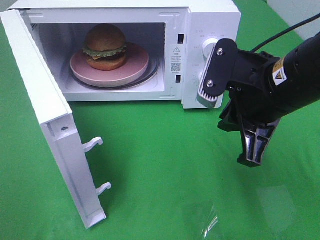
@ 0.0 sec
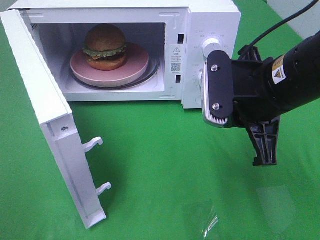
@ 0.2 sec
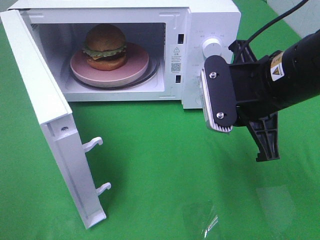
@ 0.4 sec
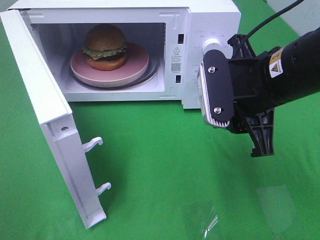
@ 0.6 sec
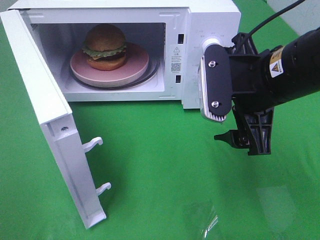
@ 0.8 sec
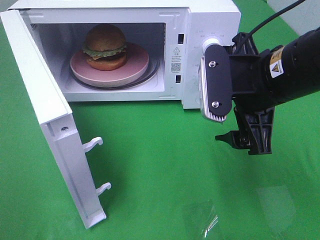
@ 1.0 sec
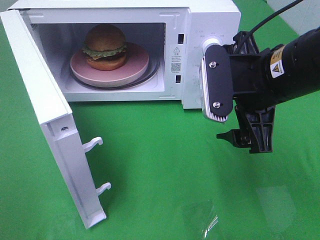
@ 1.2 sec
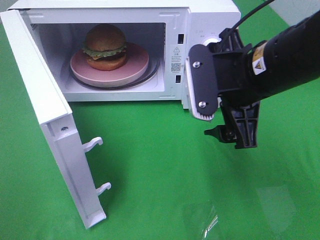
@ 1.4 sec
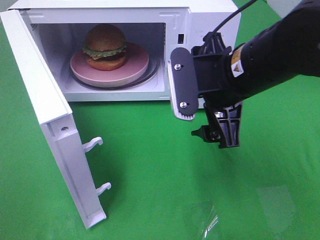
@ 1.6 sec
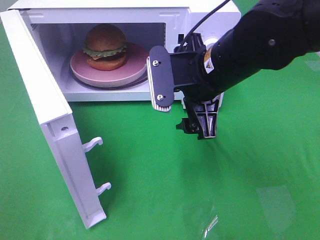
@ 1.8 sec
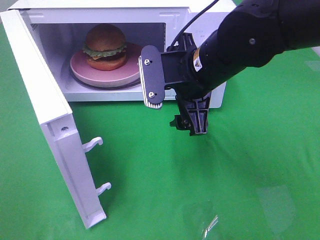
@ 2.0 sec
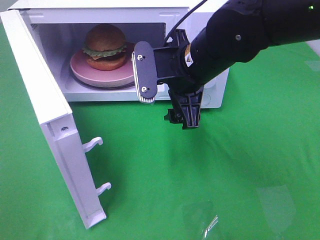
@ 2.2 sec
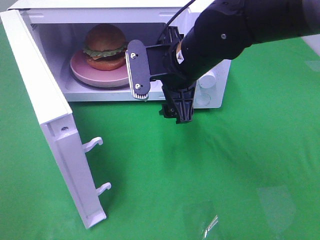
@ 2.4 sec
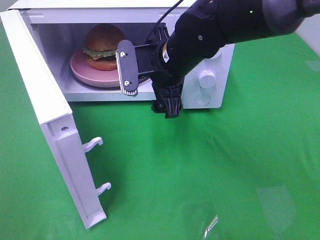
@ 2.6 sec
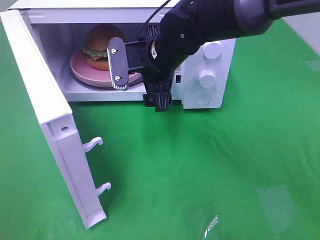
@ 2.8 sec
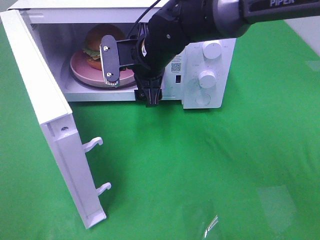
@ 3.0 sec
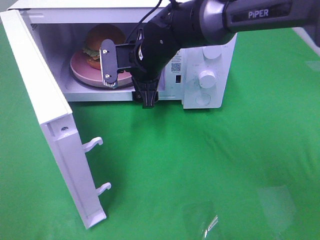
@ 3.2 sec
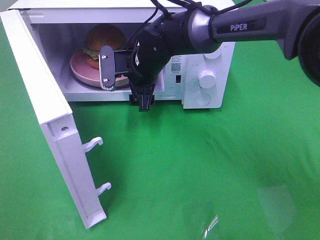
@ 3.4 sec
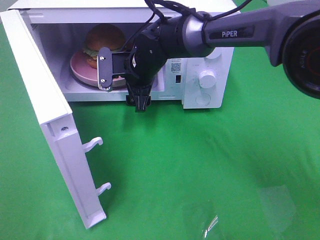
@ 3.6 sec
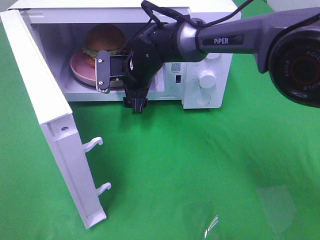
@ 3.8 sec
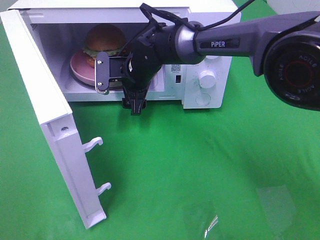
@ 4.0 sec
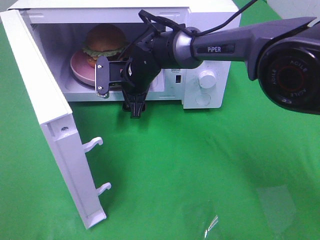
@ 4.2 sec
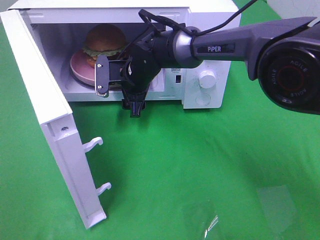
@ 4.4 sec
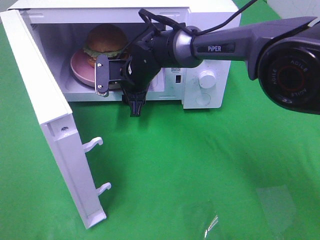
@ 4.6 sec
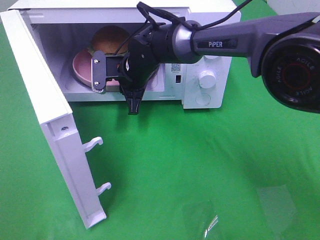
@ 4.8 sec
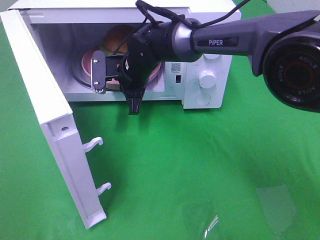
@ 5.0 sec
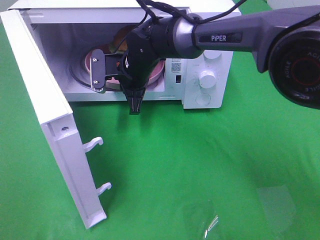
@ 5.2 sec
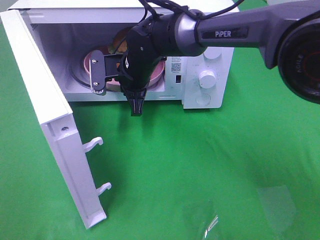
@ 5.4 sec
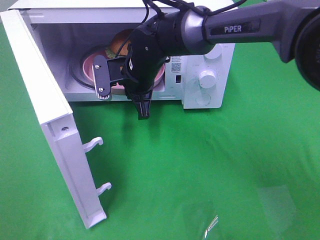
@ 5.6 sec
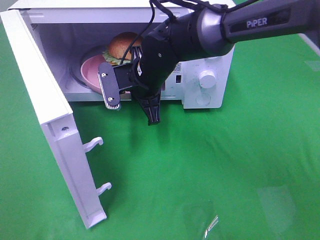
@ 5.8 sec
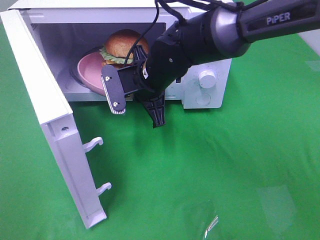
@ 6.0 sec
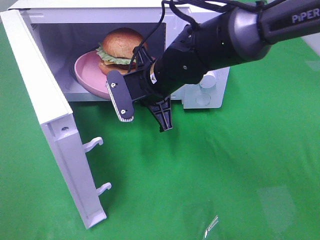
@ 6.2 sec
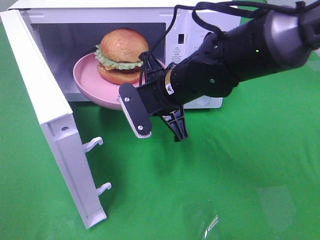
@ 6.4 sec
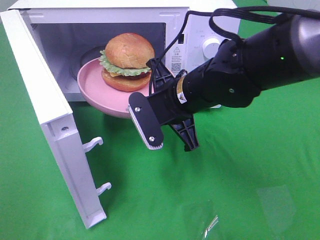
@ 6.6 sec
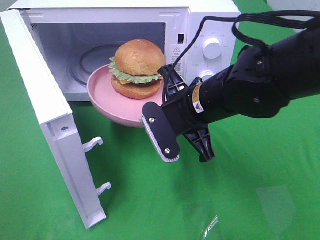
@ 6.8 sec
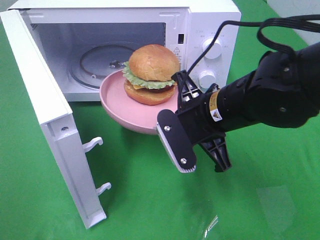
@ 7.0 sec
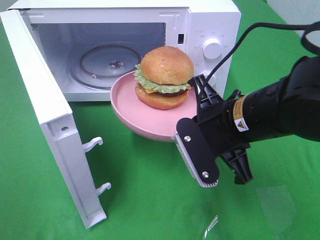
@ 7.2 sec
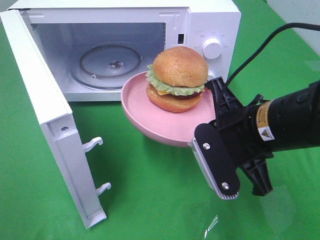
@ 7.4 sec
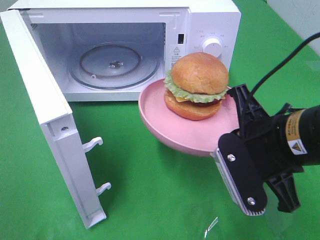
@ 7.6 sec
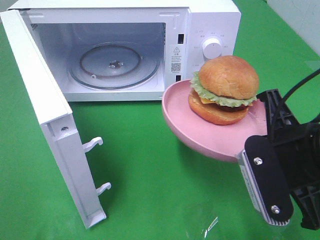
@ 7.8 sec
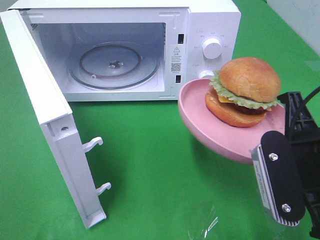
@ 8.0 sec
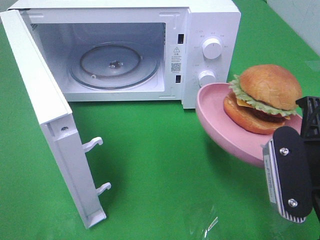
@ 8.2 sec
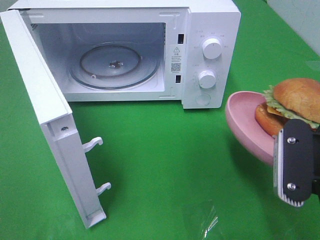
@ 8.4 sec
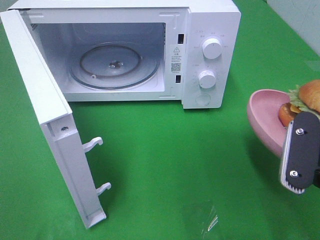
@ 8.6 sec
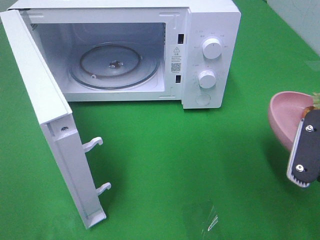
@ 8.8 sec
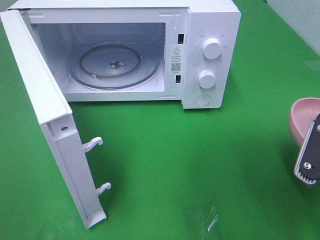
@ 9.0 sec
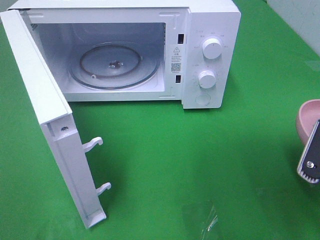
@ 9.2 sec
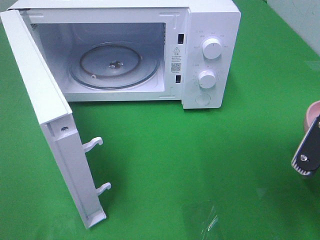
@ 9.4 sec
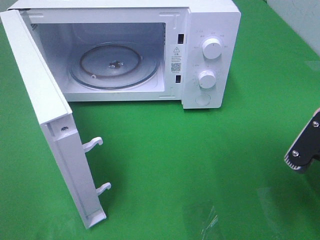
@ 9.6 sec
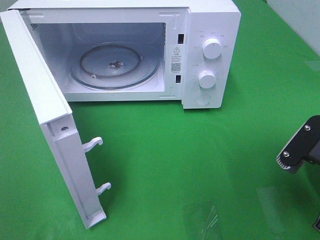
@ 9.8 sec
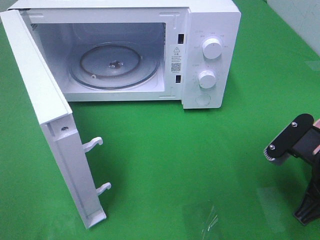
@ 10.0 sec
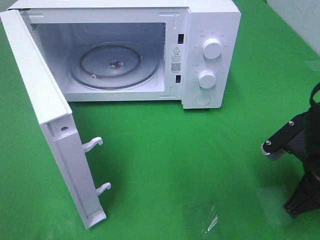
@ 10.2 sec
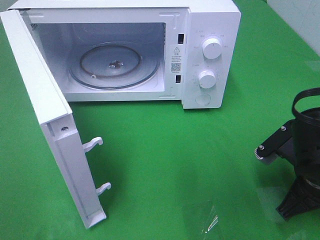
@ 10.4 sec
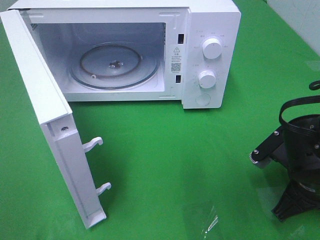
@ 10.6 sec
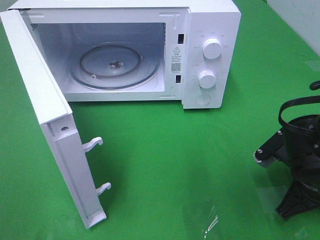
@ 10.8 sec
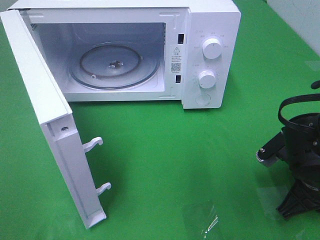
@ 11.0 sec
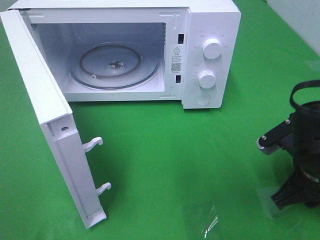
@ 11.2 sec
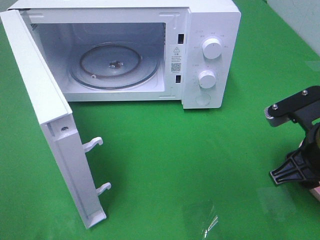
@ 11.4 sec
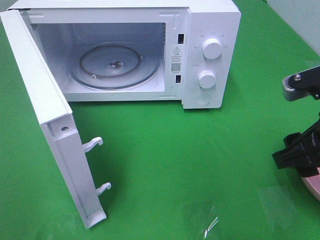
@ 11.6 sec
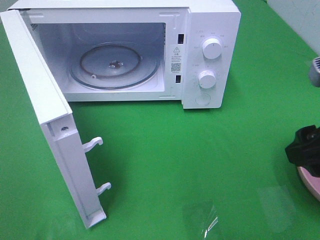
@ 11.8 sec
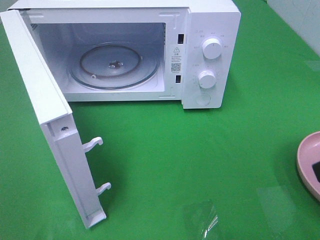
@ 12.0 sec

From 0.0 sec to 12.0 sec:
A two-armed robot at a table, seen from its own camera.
Task of the whole recording: Heat the burger.
Step, from 0.0 sec to 5.0 sec: Right hand: grab the plate with the hamburger.
Step, from 5.2 sec to 11.0 sec: Right hand: place the plate on the table.
From 0.0 sec to 1.6 sec: The right gripper opens.
From 1.6 sec to 3.0 sec: The right gripper travels forward and to the left by roughly 15 cm.
From 3.0 sec to 4.4 sec: The right gripper shifts roughly 5 cm downward.
From 4.4 sec to 6.0 sec: The right gripper moves backward, approximately 5 cm, and closes its fingers.
From 6.0 sec to 7.6 sec: The right gripper goes approximately 25 cm backward and to the right.
From 7.6 sec to 9.0 sec: The right gripper heads to the right, covering roughly 10 cm.
From 9.0 sec to 10.4 sec: The right gripper goes some 10 cm downward and forward.
From 10.4 sec to 12.0 sec: The right gripper moves upward and backward, some 20 cm, and opens.

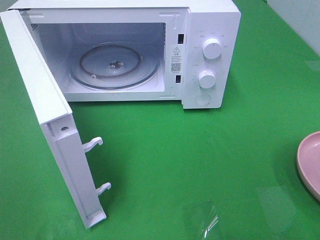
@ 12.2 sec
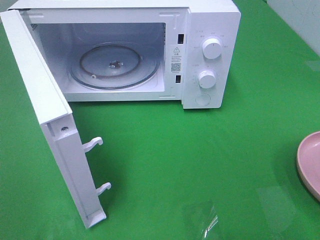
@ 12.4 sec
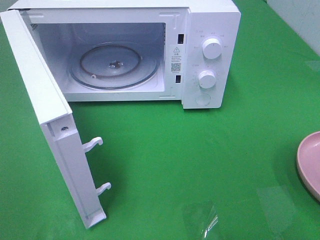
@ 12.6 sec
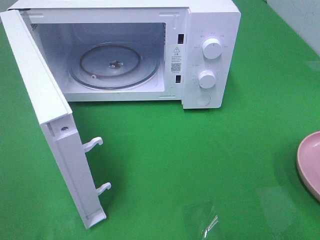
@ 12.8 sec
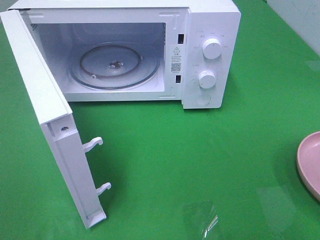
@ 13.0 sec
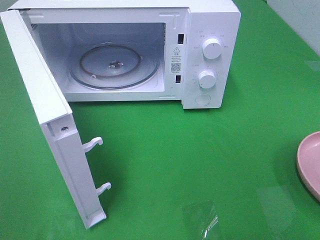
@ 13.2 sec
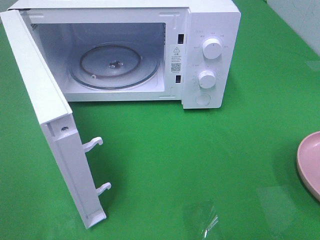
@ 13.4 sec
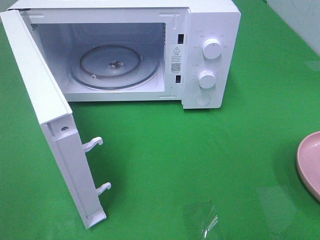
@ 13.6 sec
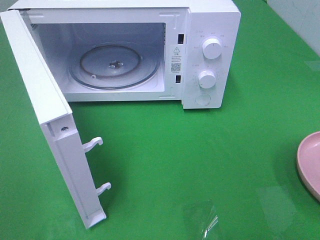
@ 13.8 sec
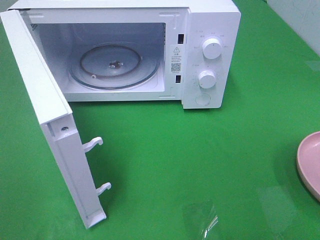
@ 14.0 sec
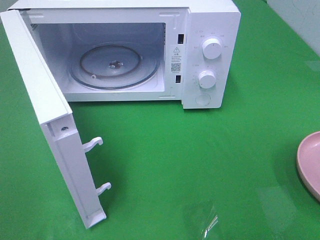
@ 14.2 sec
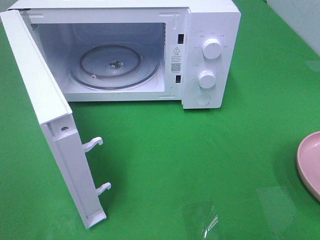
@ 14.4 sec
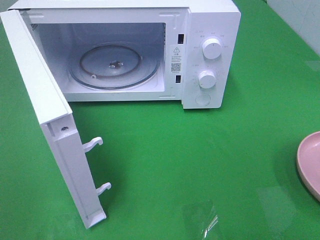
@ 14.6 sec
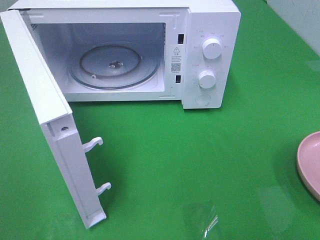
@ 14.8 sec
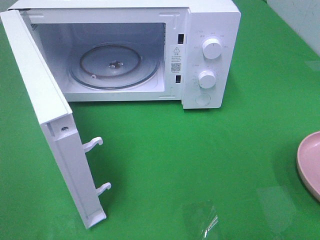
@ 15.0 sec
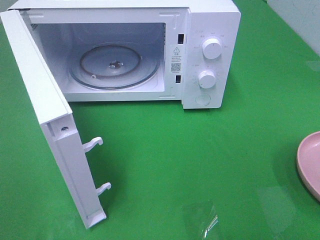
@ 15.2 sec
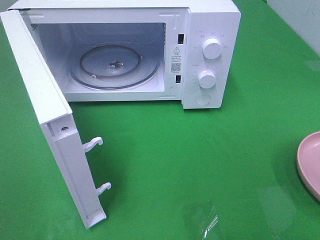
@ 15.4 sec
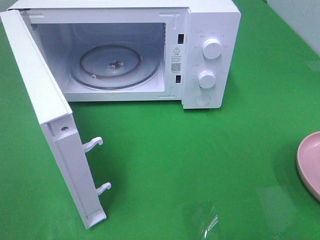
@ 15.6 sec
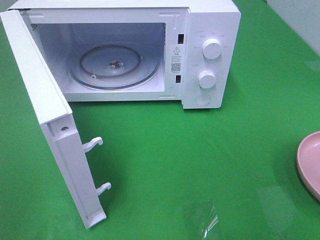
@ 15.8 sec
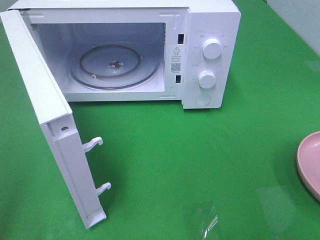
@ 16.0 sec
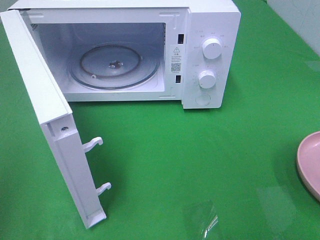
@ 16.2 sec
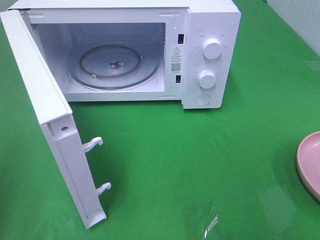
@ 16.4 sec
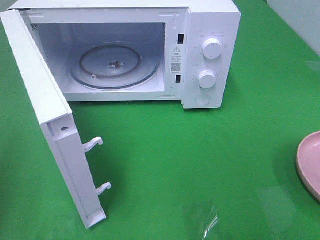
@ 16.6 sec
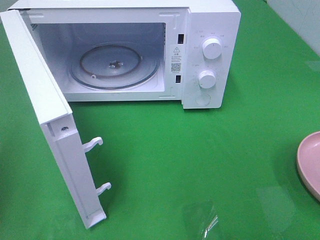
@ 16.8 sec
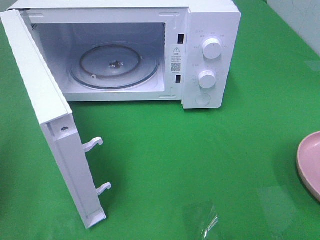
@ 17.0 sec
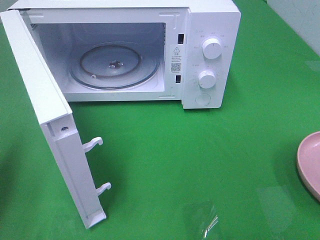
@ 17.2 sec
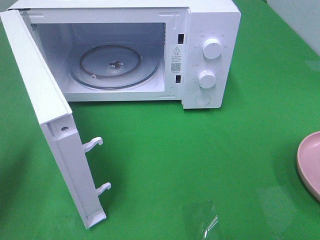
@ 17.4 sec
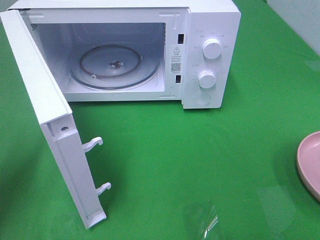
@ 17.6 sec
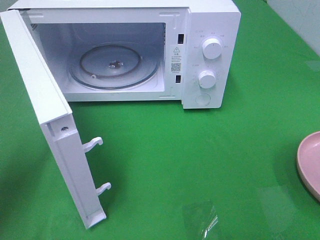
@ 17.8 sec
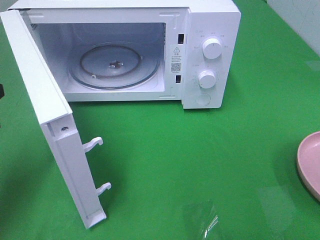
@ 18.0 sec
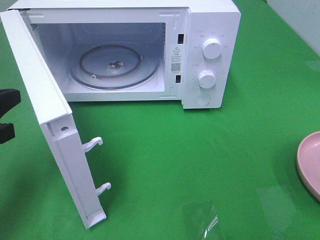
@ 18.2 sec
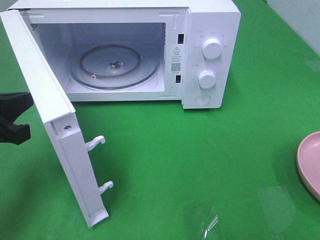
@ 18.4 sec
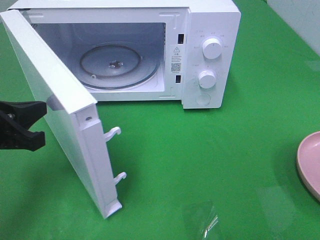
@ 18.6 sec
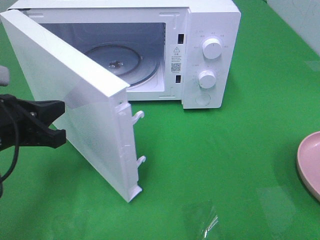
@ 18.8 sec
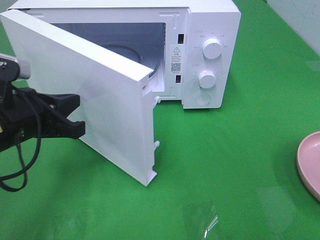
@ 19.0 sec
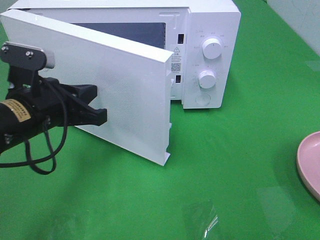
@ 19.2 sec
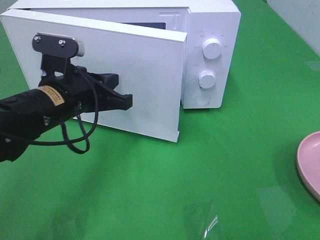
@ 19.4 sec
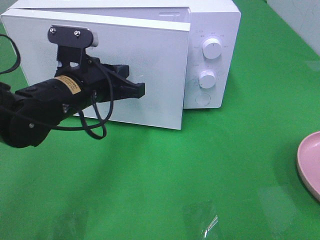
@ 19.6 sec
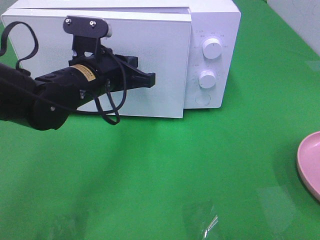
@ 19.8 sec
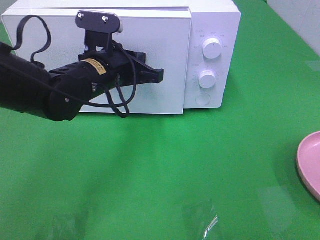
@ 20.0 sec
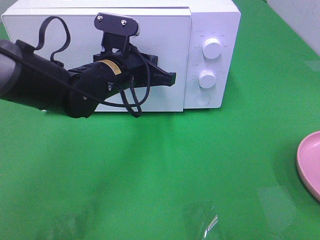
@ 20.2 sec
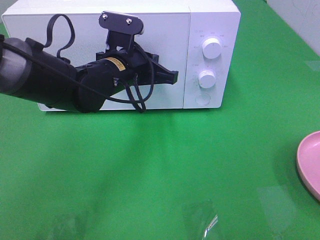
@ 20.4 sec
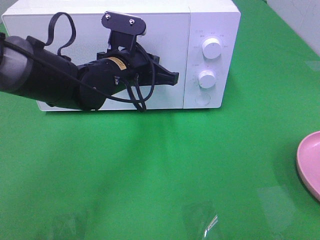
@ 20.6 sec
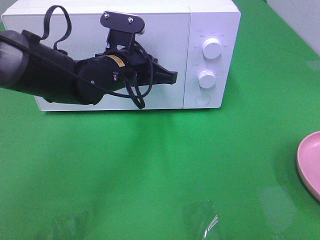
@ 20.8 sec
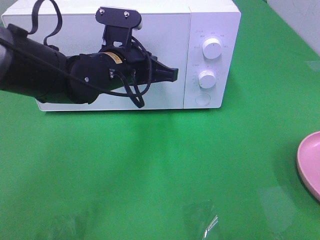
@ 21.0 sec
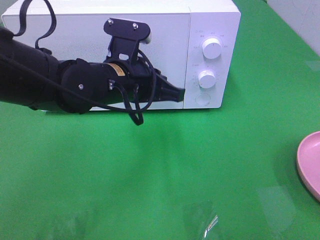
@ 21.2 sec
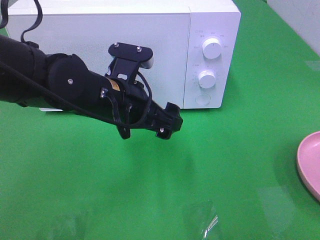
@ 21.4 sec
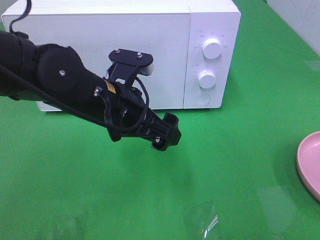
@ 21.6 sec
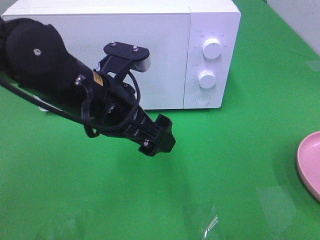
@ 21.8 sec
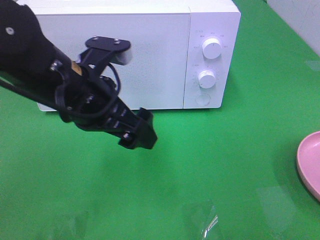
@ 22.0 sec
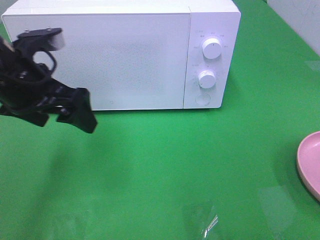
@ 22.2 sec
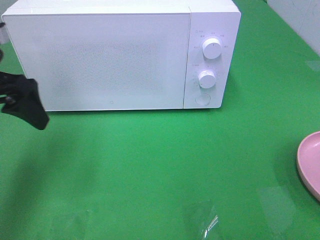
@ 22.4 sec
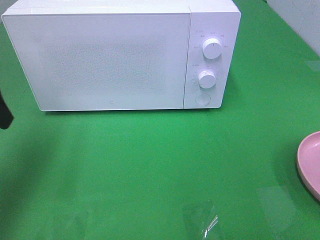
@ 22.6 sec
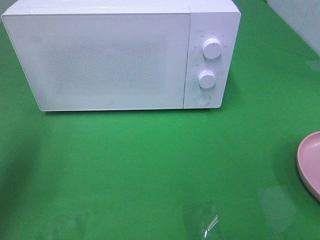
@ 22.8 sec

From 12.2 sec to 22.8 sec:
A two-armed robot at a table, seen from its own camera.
Task of the whole recording: Heat the burger.
Step, from 12.2 sec to 20.4 sec: Left hand: close the microwave door.
From 13.8 sec to 15.2 sec: The two grippers keep their place.
From 16.8 sec to 18.2 sec: The left gripper moves to the right, forward and downward, roughly 10 cm.
From 18.2 sec to 19.8 sec: The left gripper shifts some 20 cm to the right and forward.
From 19.8 sec to 21.2 sec: The grippers stay close to where they were, moving slightly.
From 21.2 sec to 22.8 sec: The left gripper moves to the left and upward, approximately 30 cm, and opens up.
